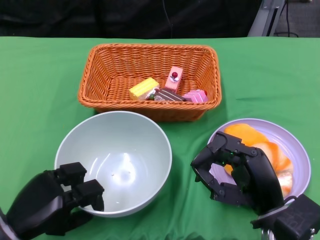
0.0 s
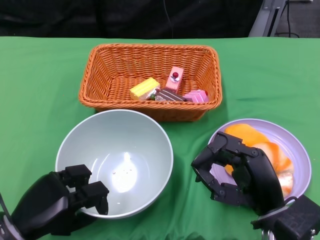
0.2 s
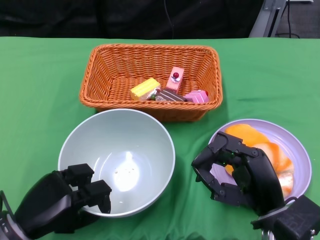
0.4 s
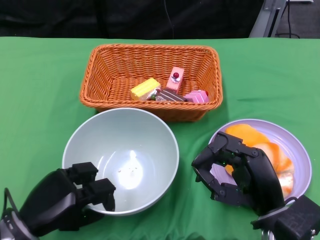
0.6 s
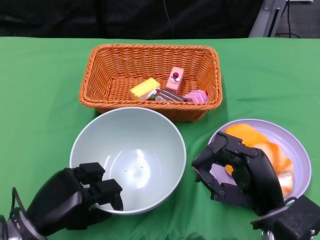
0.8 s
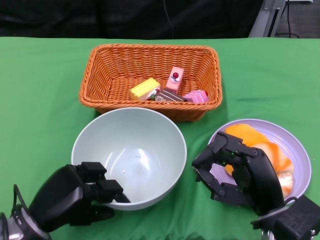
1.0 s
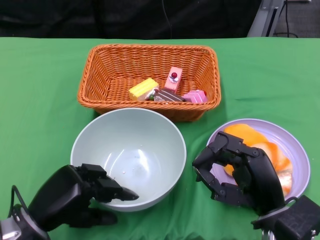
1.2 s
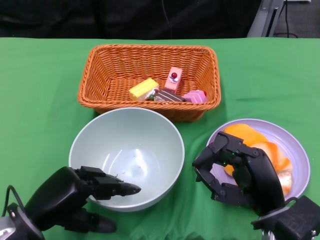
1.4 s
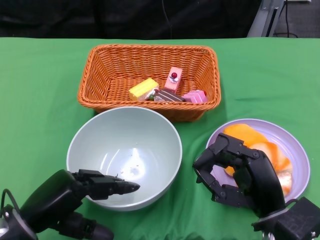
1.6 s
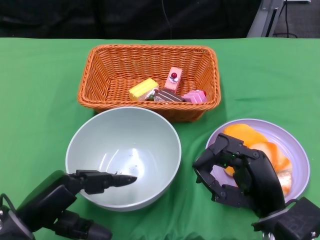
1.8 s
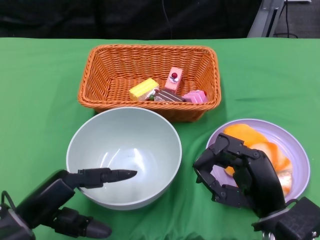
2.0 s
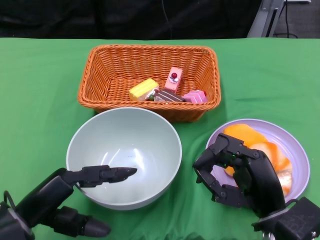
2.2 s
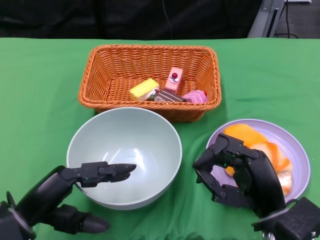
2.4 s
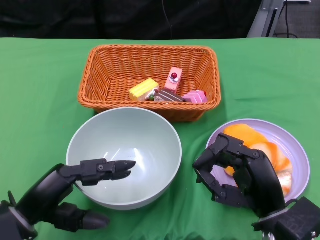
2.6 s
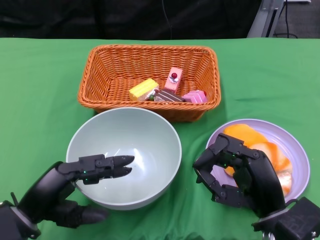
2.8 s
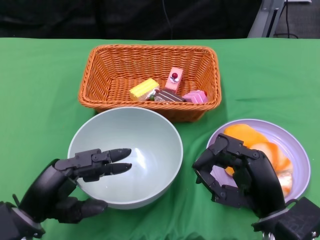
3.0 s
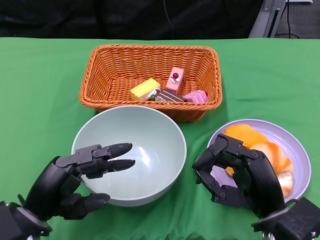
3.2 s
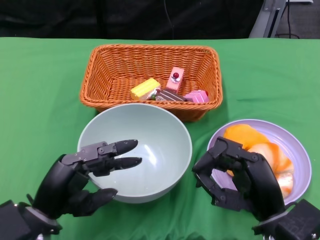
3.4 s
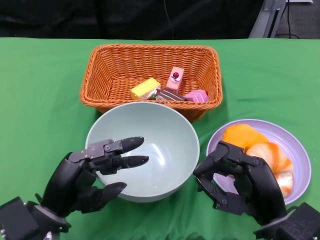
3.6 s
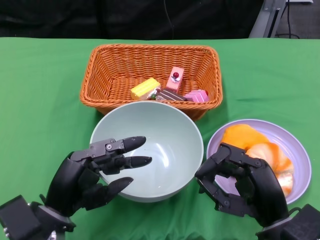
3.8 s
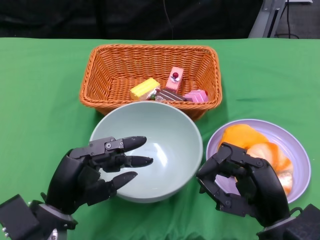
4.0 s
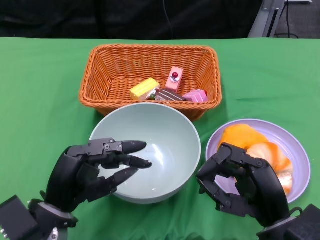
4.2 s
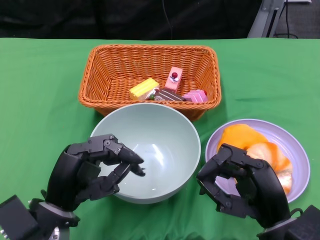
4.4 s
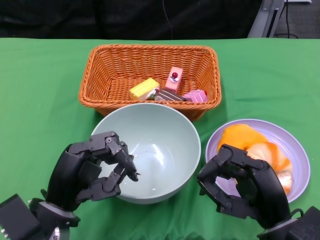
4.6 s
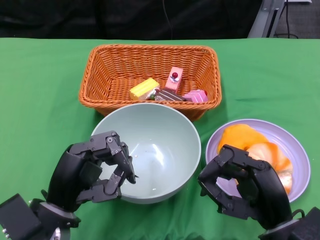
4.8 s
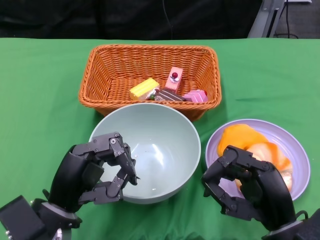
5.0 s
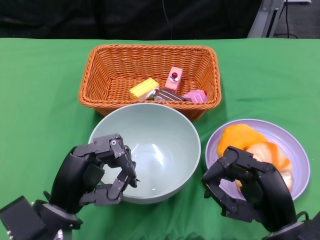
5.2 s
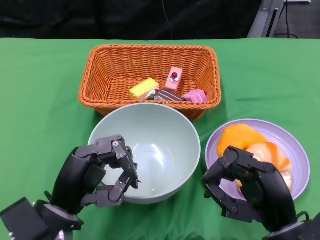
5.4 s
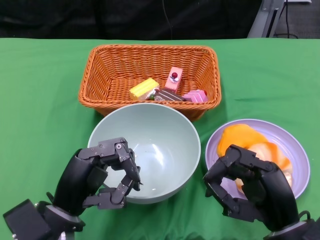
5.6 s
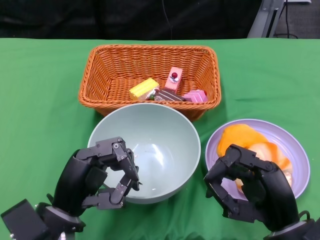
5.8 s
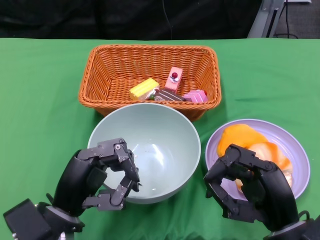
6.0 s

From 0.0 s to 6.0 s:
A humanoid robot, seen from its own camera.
From 3.0 s to 4.4 s: The hands move only a little.
From 4.4 s to 6.0 s: Both hands stay put.

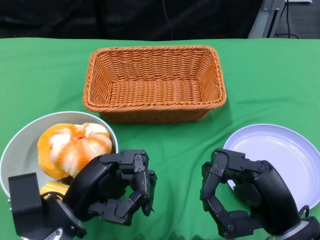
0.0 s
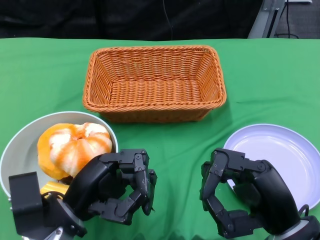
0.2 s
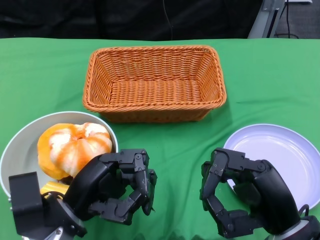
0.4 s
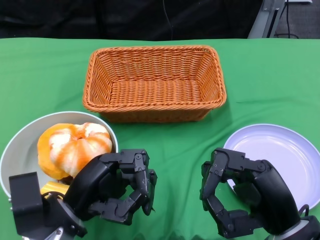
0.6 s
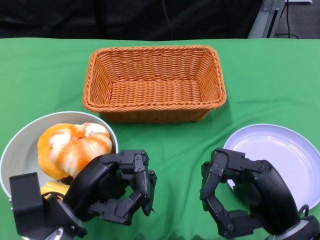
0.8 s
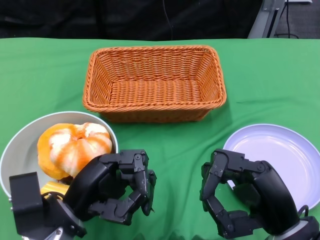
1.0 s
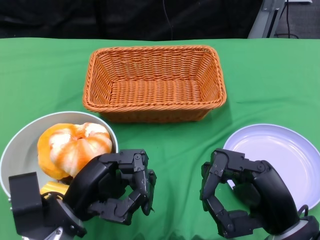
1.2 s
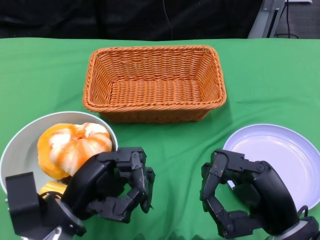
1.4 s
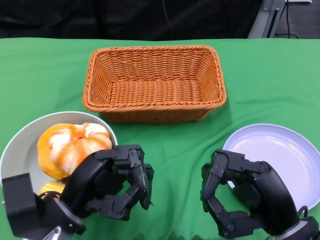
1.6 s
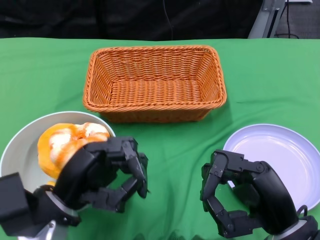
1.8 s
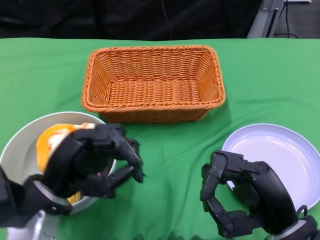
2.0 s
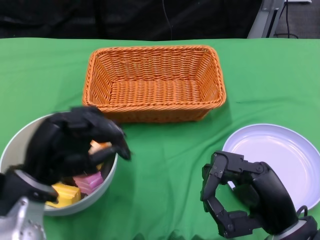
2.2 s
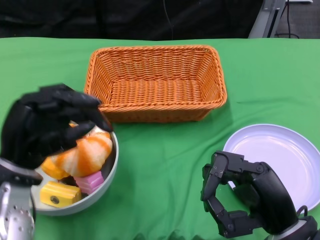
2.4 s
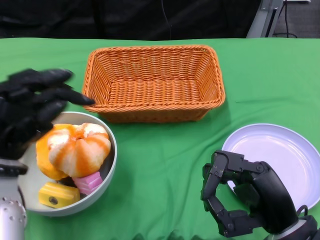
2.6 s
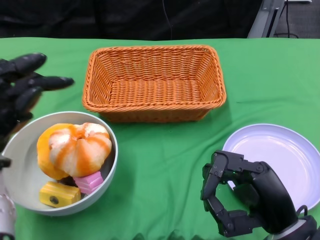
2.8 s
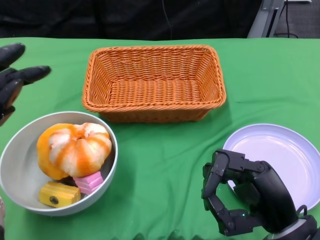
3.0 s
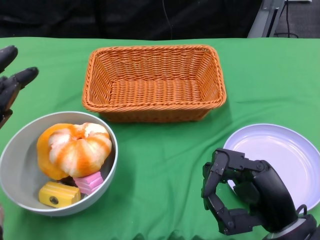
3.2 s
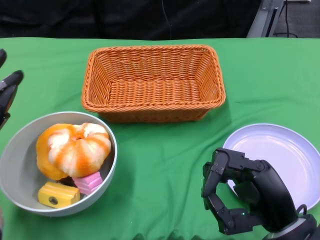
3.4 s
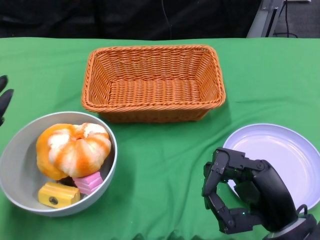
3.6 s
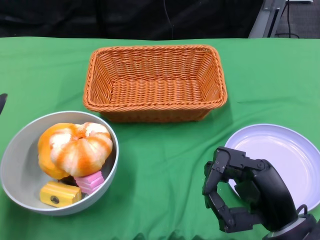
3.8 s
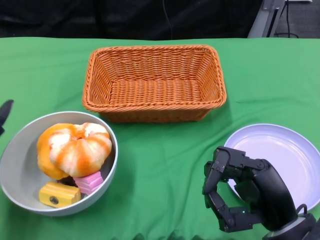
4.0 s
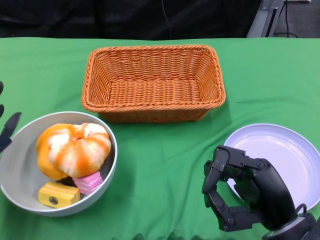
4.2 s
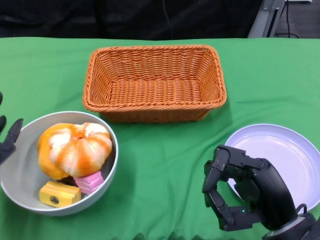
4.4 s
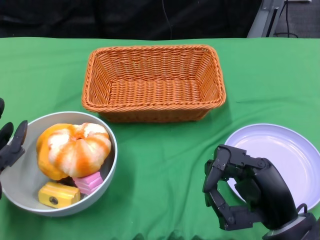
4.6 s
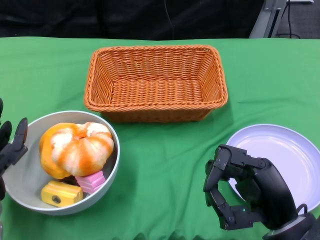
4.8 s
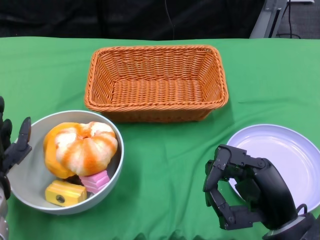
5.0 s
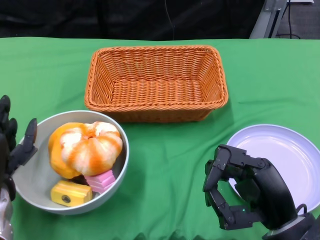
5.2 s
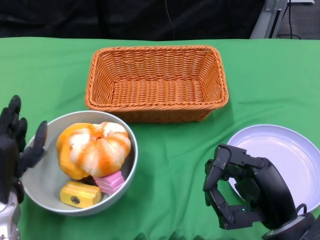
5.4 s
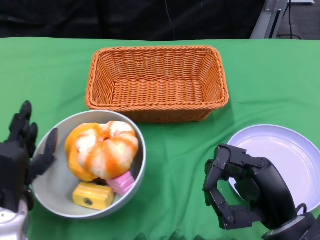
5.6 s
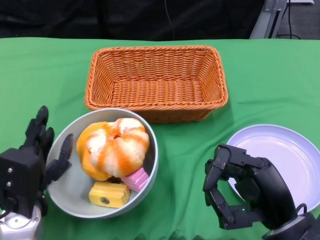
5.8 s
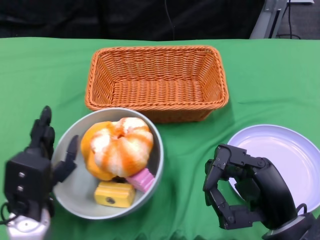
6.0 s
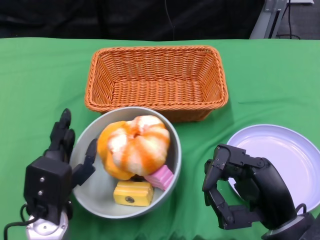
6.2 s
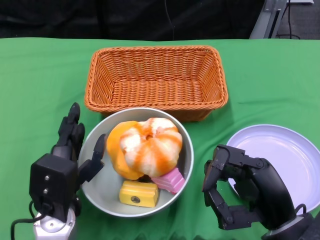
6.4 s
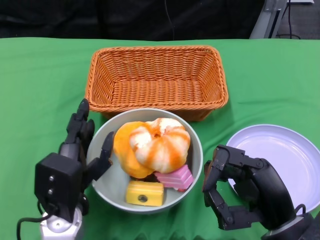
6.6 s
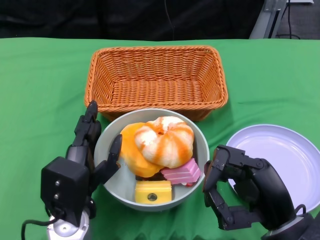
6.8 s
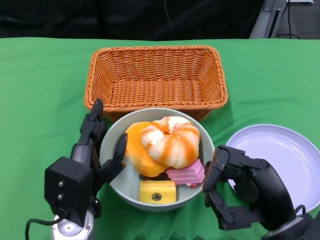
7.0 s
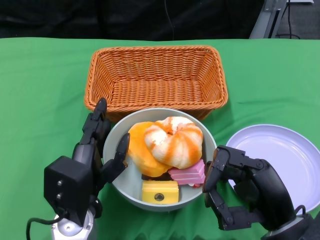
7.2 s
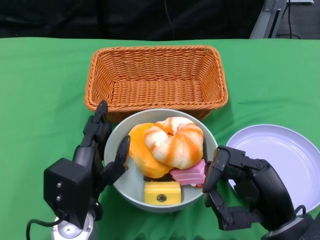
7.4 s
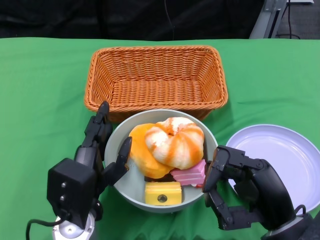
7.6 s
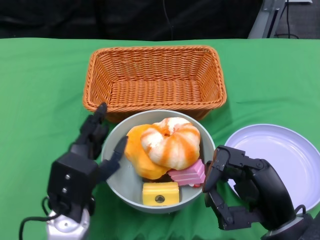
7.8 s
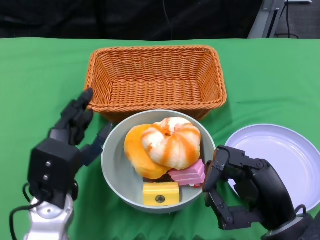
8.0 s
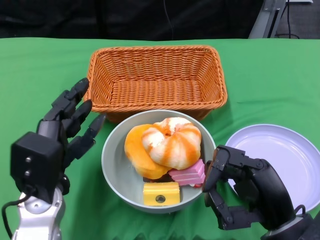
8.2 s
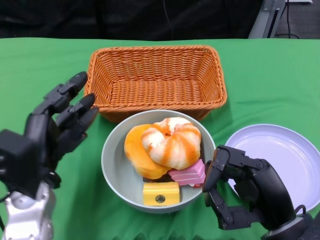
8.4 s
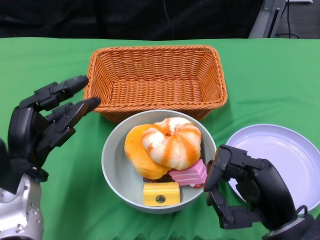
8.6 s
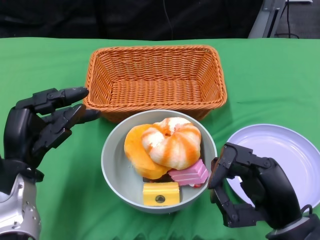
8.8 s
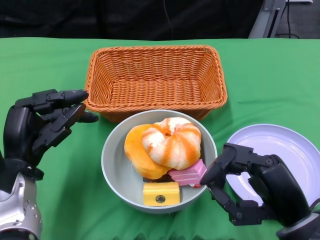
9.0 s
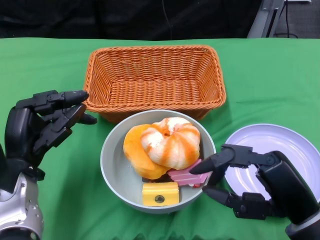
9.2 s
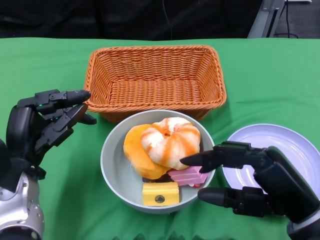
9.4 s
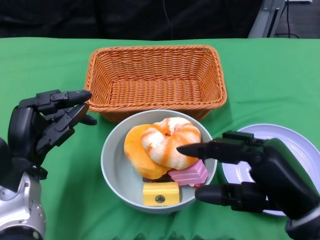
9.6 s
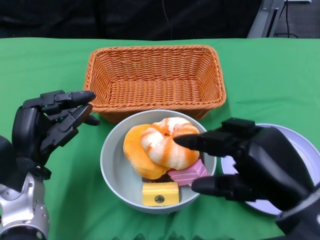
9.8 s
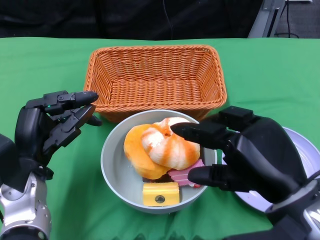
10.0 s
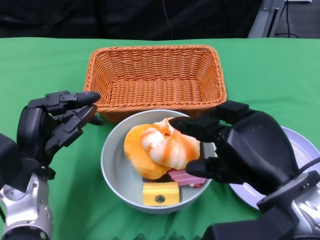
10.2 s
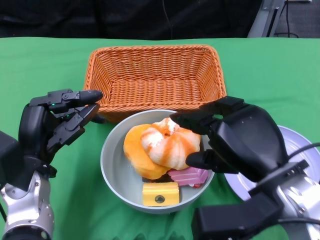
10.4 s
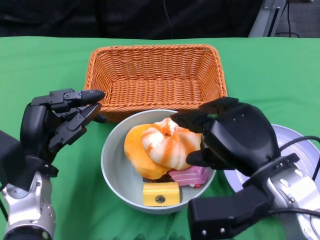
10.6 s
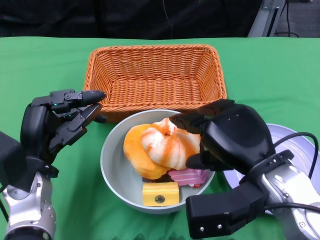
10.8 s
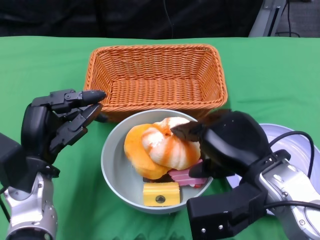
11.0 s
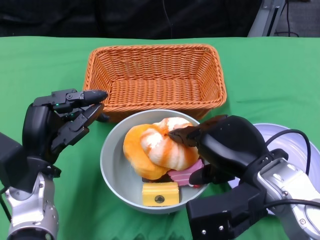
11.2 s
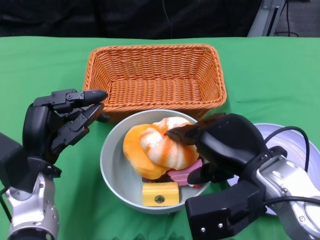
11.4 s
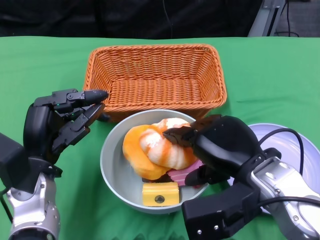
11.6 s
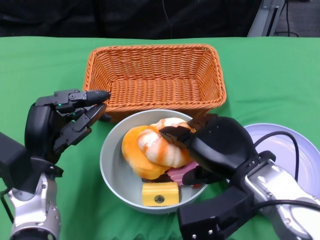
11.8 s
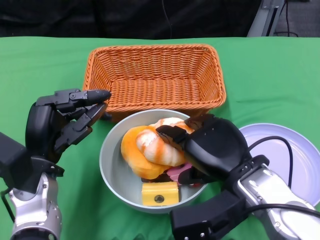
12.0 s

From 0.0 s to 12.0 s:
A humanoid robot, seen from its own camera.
Step, from 0.0 s to 7.8 s: Push the bowl to the center of the table using the left gripper.
From 1.6 s to 3.0 s: The left hand goes some 10 cm to the left.
From 3.0 s to 4.4 s: The left hand is displaced downward by about 5 cm.
From 4.4 s to 6.0 s: The left hand moves to the right, approximately 10 cm.
From 6.0 s to 7.6 s: The left hand is displaced to the right by about 5 cm.
From 7.6 s to 9.0 s: The left hand heads to the left, covering approximately 10 cm.
From 9.0 s to 10.4 s: The right hand travels upward by roughly 5 cm.
From 10.4 s to 12.0 s: The right hand ends up about 5 cm from where it was.

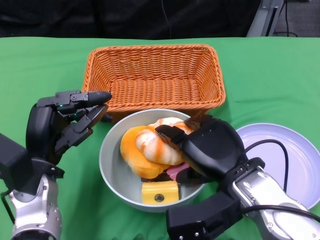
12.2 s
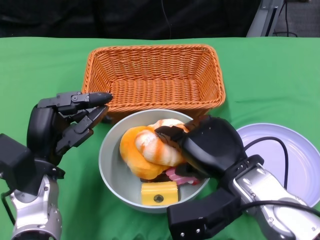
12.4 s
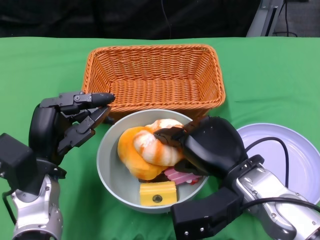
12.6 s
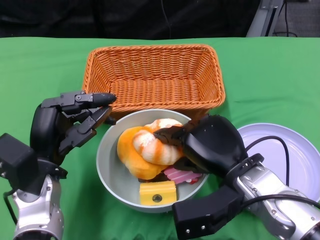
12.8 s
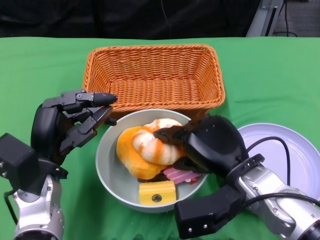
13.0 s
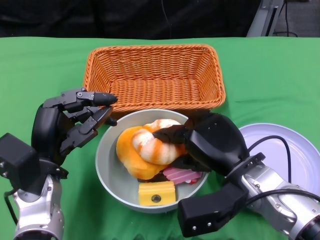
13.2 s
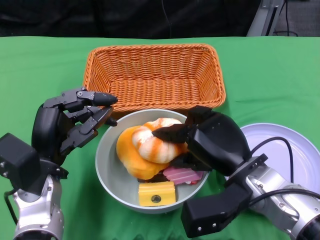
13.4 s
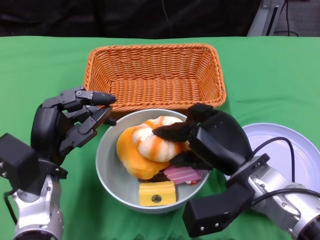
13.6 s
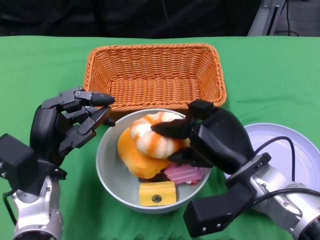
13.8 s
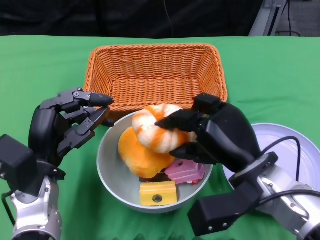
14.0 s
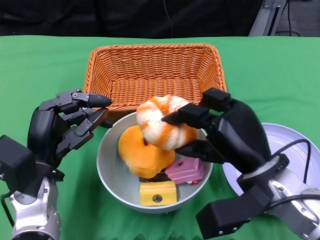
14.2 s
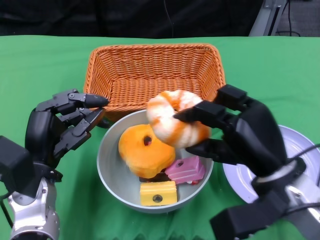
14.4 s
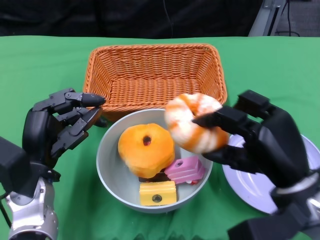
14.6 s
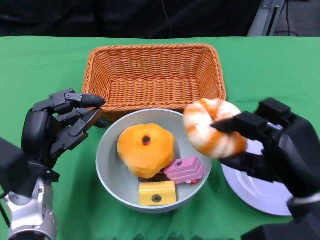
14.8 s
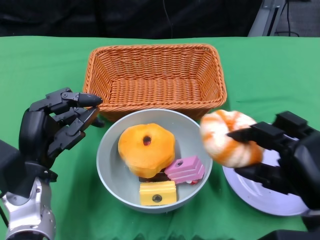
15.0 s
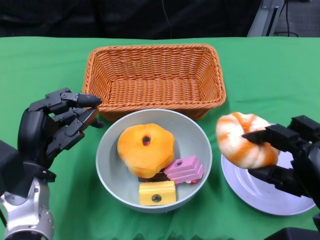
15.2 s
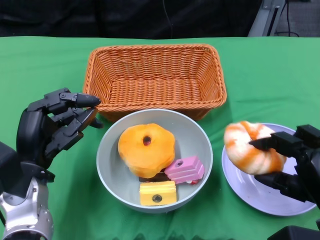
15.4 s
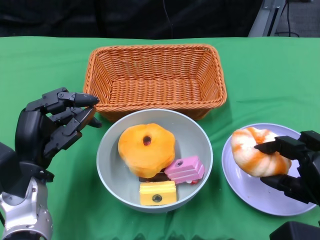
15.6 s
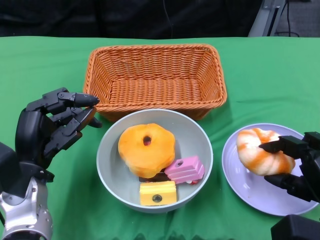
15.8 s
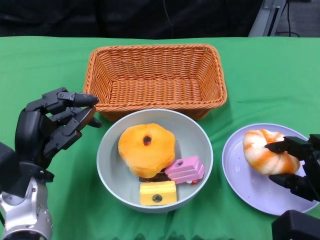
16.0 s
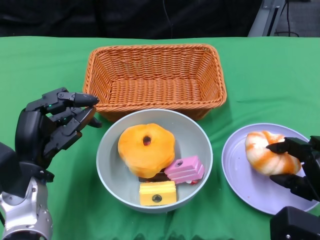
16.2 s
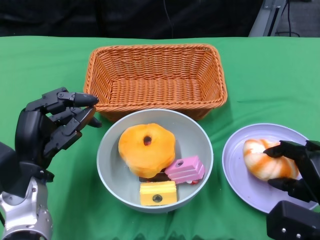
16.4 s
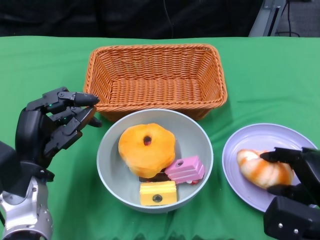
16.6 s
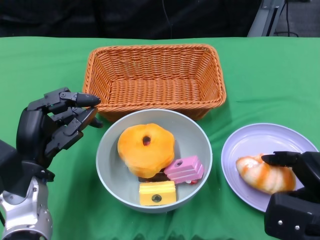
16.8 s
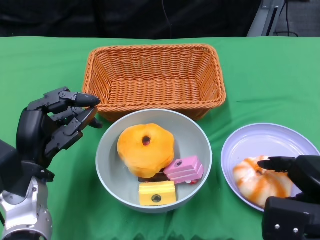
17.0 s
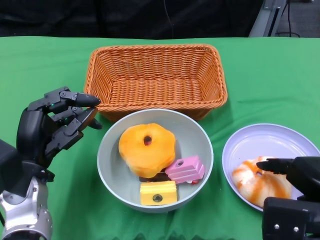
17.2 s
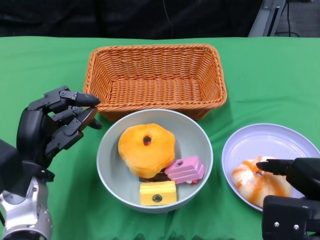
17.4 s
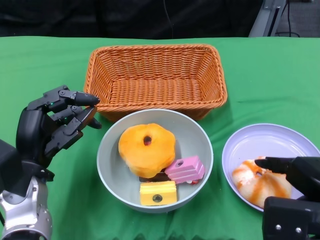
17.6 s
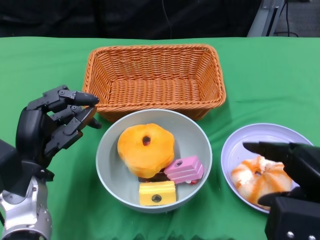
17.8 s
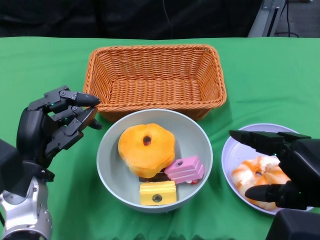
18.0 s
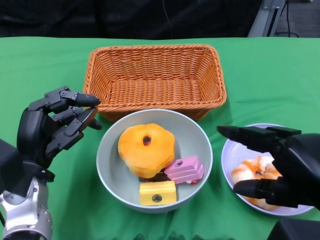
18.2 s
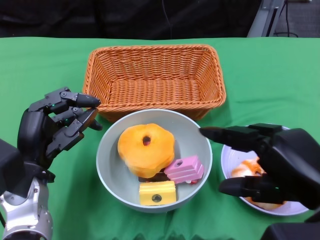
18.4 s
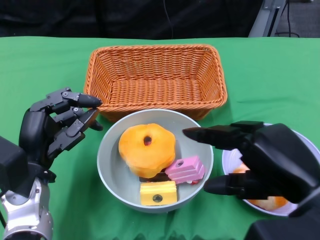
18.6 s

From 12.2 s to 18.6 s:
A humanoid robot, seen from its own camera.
From 13.8 s to 15.4 s: The right hand shifts some 15 cm to the right and backward.
From 17.0 s to 18.6 s: The right hand shifts some 10 cm upward and to the left.
